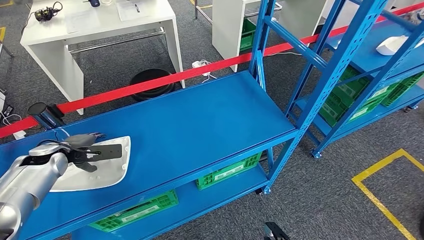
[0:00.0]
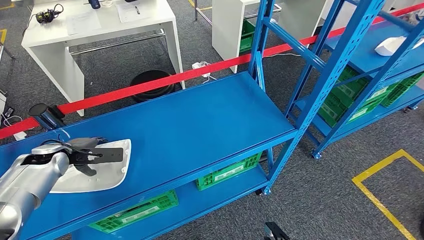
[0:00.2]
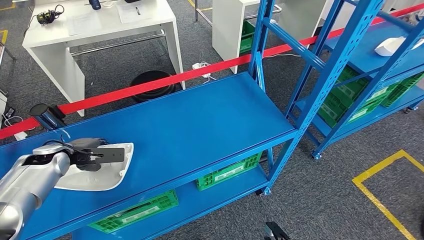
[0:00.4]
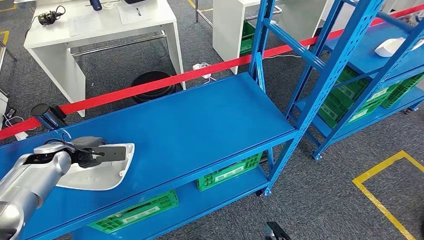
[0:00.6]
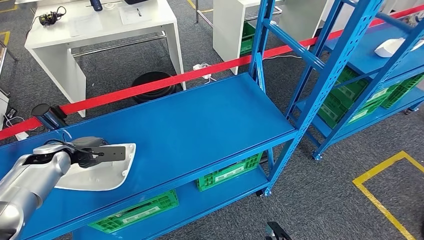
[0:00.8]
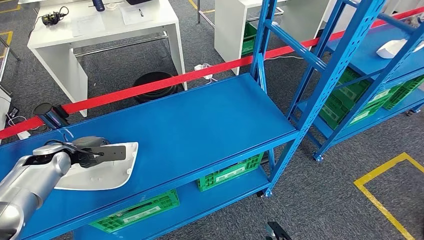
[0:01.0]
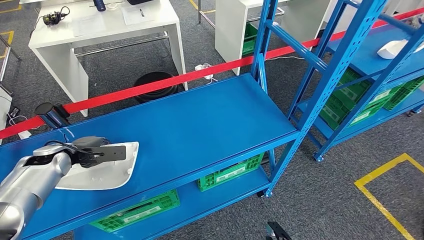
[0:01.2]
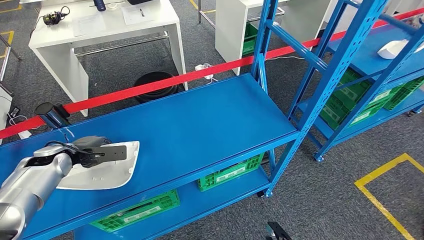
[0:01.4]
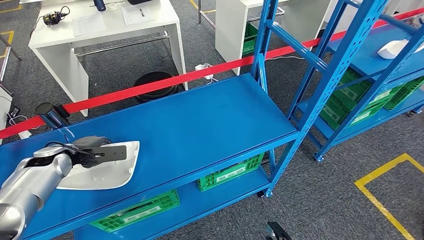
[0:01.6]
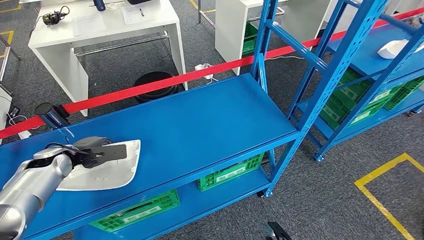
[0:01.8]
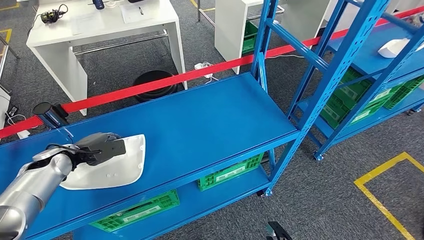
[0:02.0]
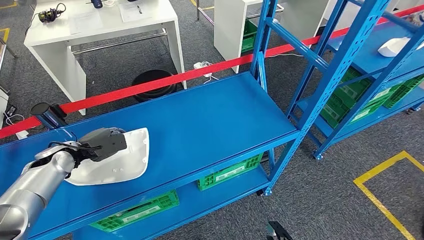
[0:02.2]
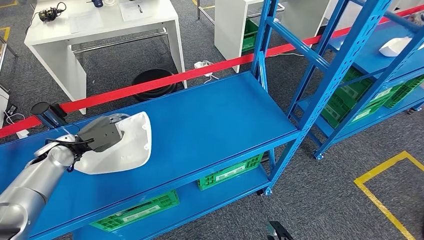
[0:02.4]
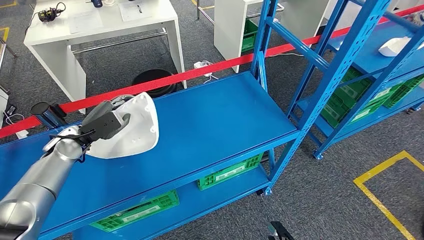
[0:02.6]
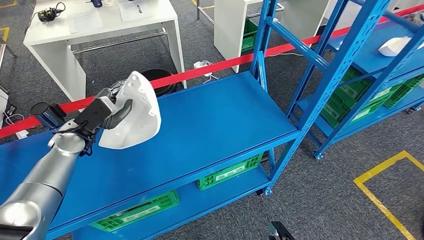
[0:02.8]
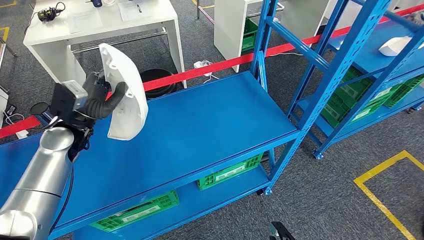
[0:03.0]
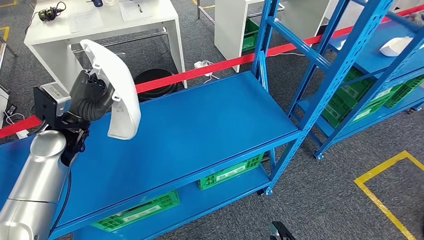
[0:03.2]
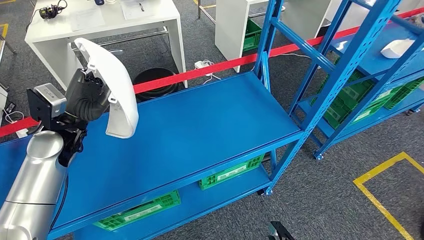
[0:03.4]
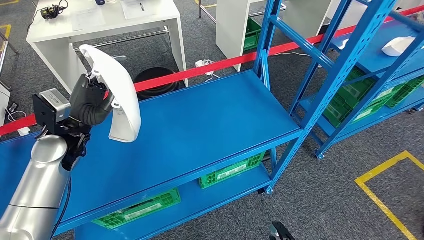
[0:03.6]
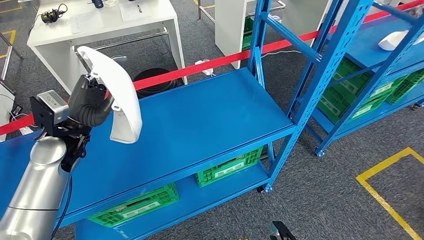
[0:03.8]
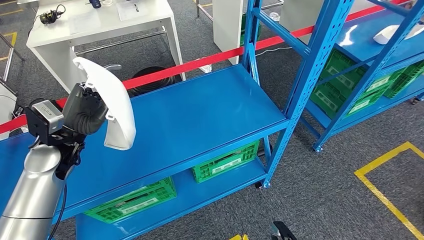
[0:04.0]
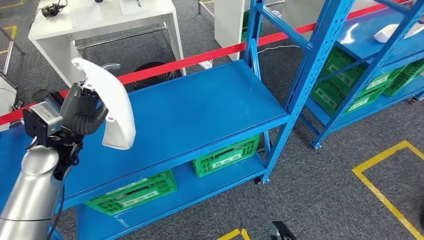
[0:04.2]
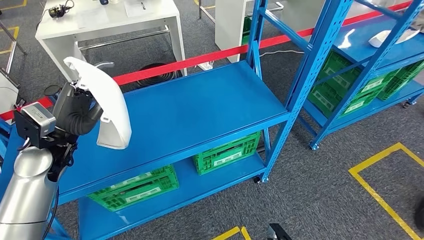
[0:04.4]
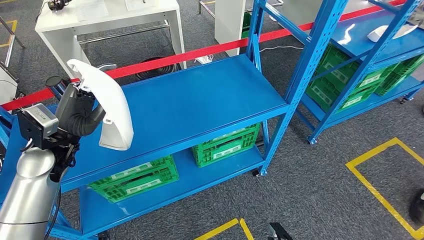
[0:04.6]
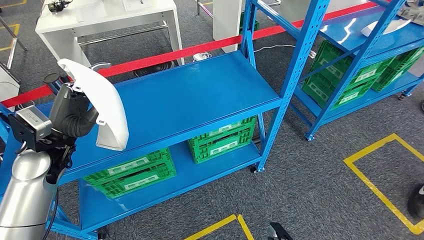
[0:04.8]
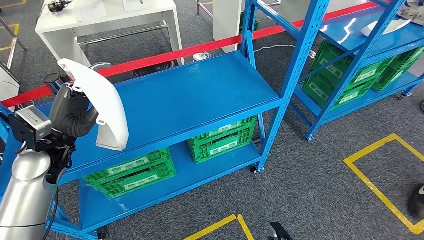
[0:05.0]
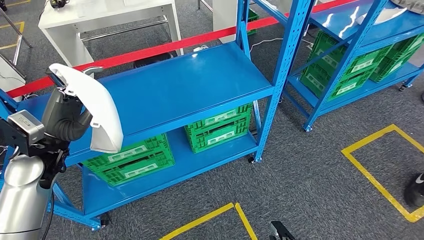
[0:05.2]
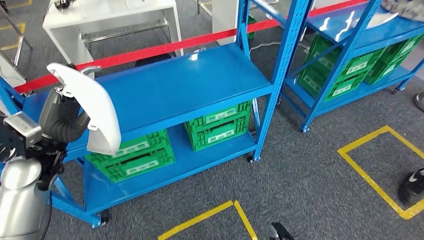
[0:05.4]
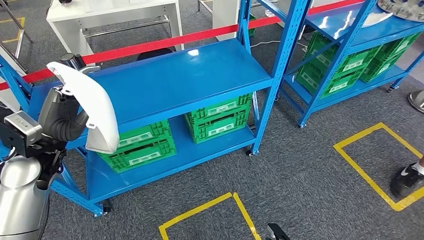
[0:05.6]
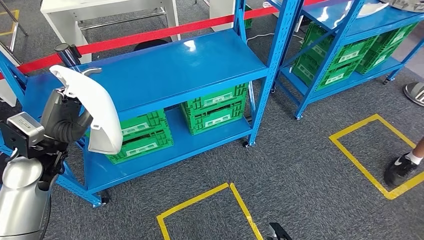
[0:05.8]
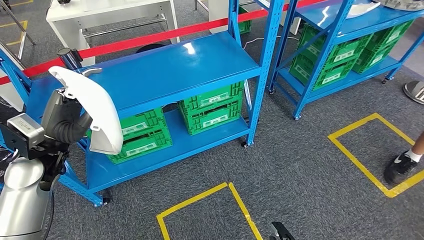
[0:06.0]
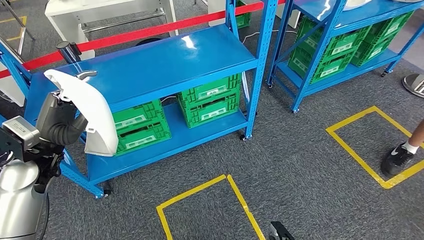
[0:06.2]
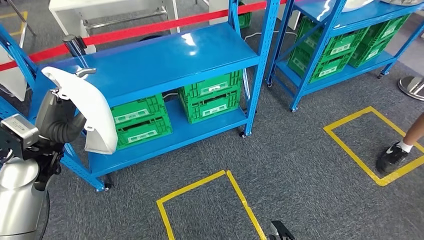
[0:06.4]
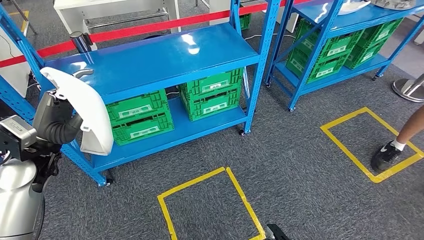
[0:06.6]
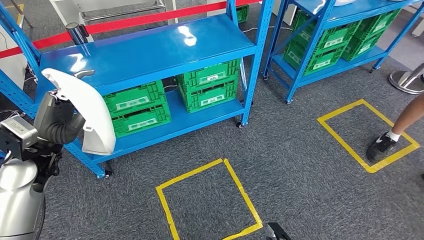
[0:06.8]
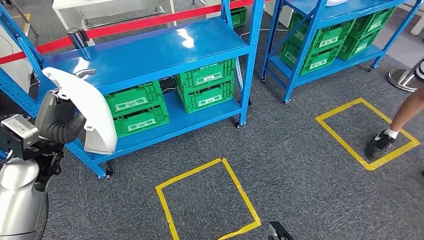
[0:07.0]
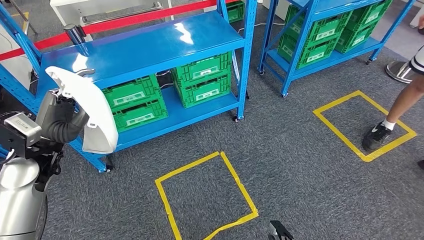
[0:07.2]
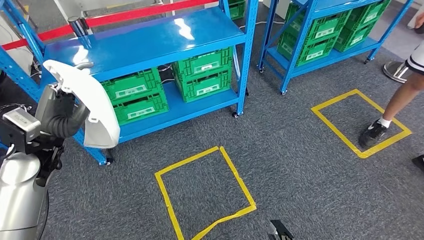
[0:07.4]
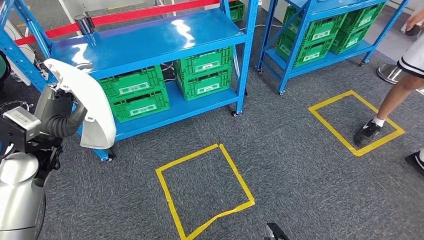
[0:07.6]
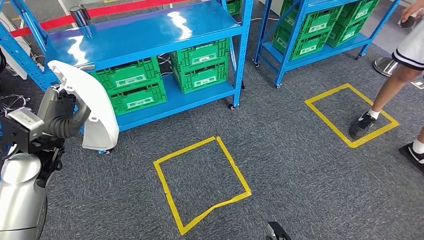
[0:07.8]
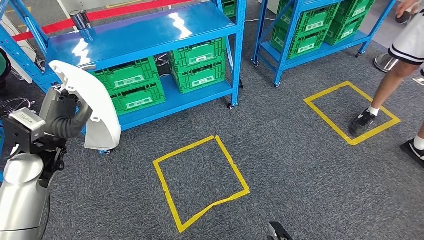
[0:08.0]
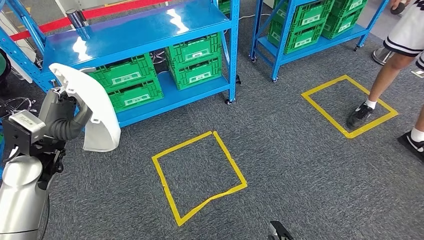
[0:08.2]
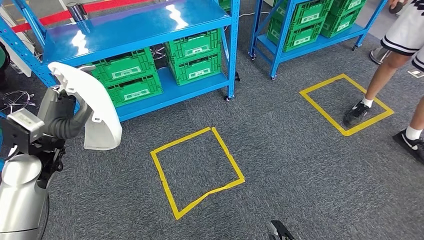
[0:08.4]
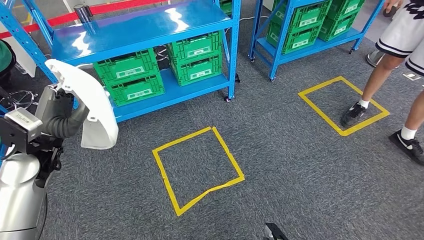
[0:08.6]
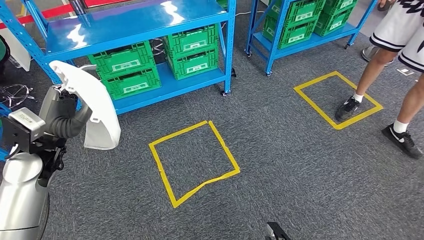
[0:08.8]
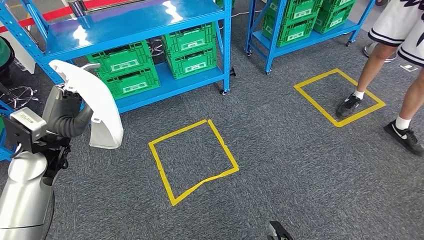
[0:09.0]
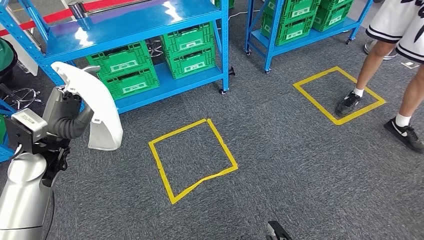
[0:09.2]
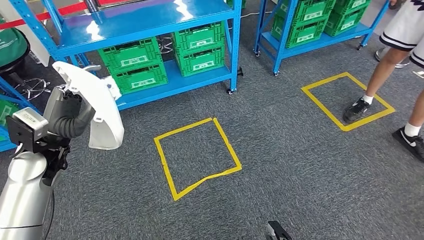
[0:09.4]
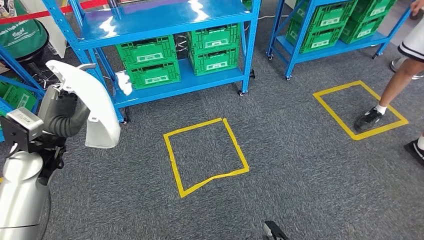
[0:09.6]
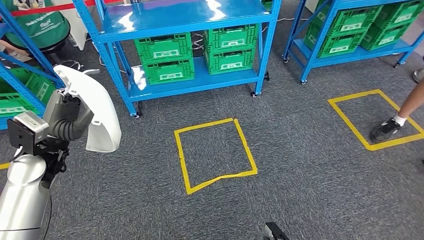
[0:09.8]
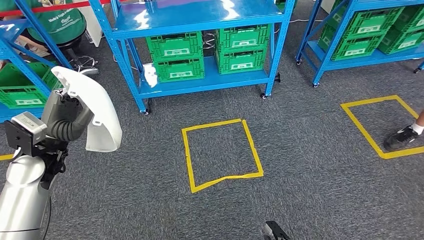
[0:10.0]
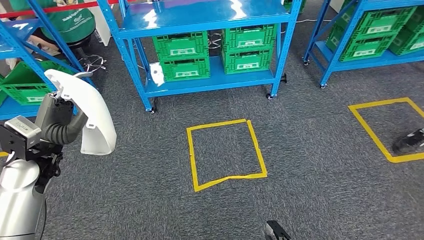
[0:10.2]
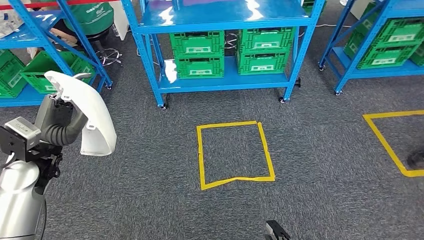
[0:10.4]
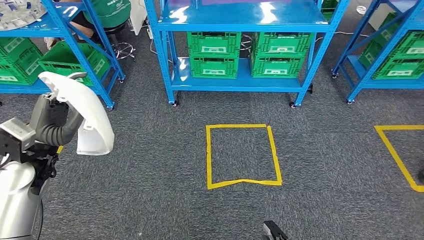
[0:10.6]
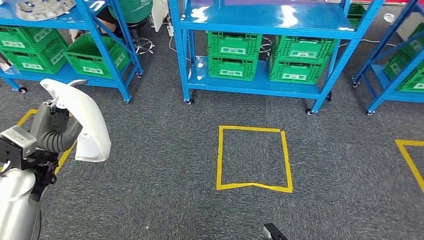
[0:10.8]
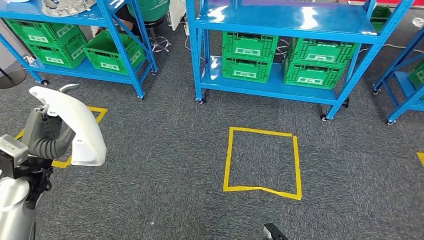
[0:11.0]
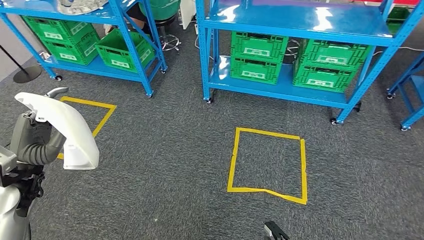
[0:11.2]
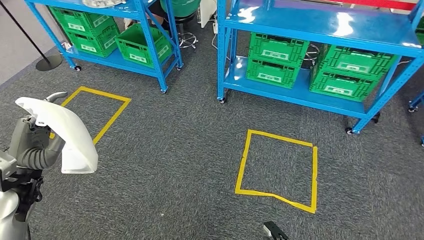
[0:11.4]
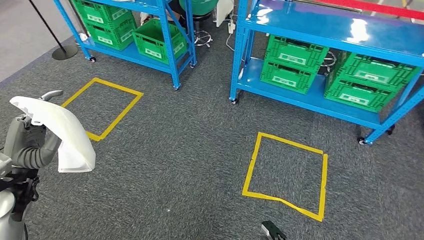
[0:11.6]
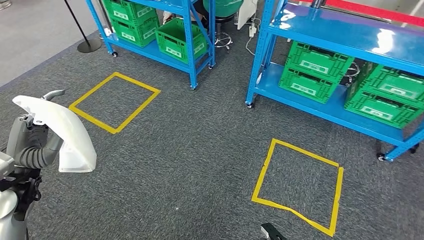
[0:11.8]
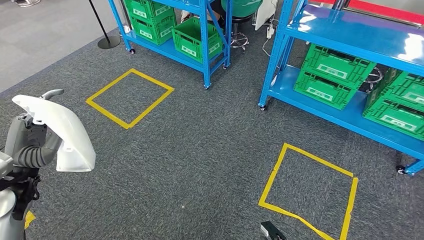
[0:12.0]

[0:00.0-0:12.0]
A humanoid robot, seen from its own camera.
Step, 0:00.0 to 0:05.0: Take small components from the rack.

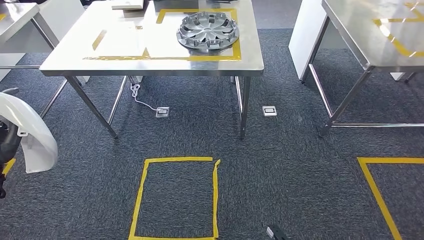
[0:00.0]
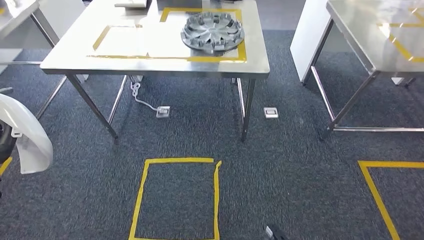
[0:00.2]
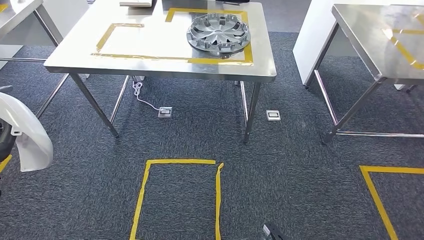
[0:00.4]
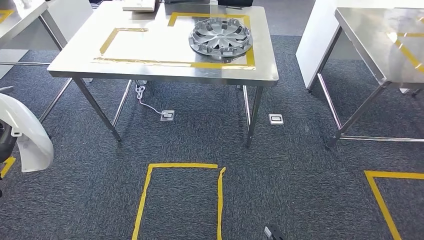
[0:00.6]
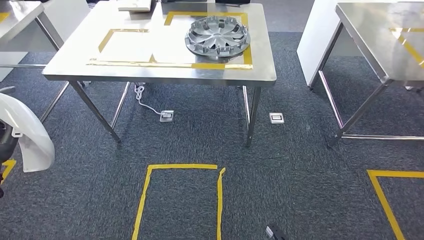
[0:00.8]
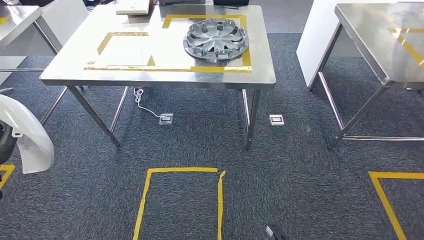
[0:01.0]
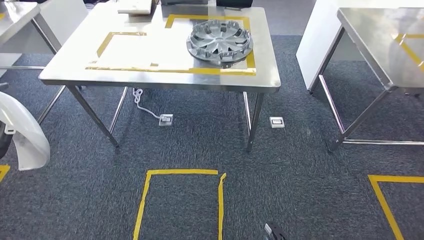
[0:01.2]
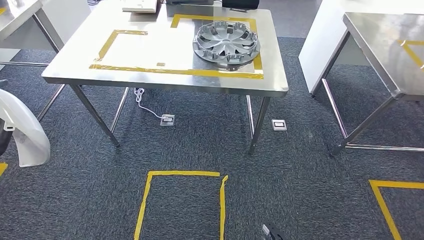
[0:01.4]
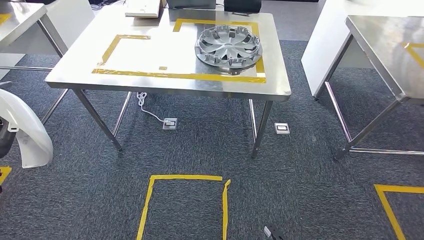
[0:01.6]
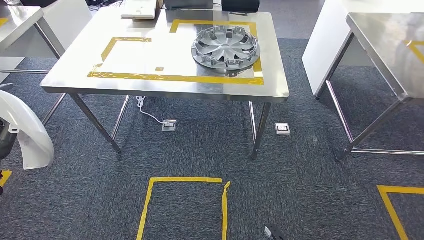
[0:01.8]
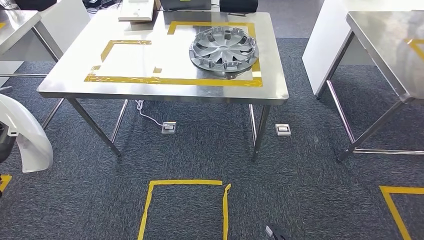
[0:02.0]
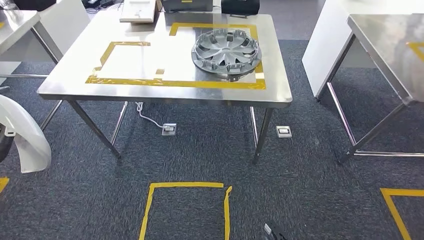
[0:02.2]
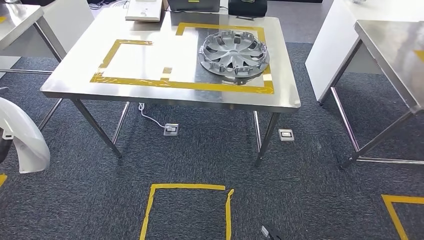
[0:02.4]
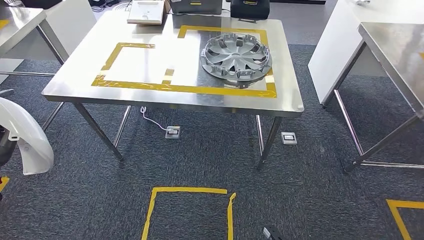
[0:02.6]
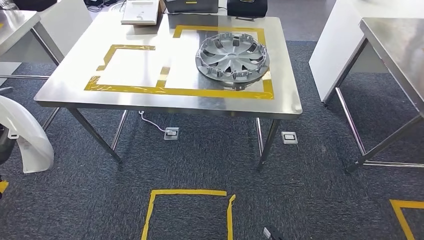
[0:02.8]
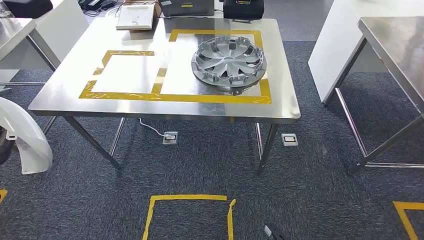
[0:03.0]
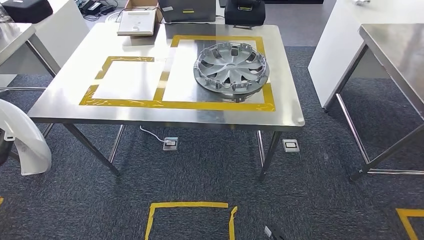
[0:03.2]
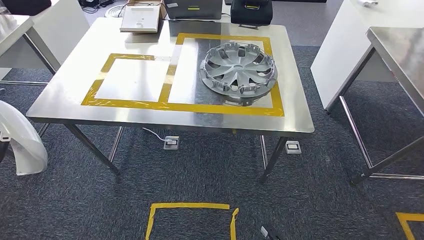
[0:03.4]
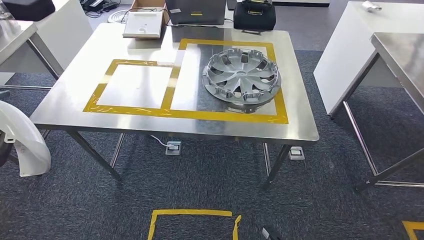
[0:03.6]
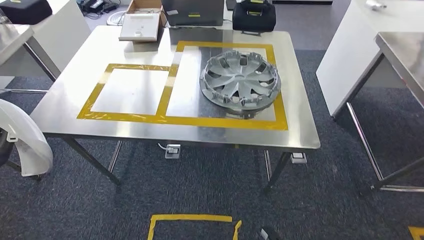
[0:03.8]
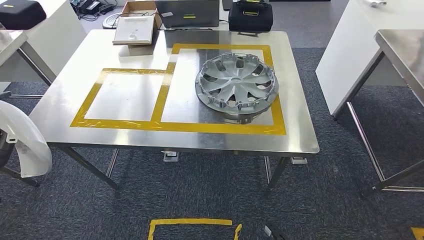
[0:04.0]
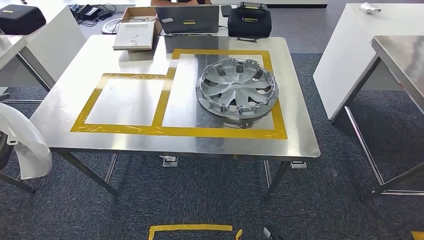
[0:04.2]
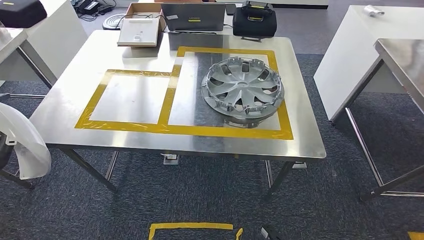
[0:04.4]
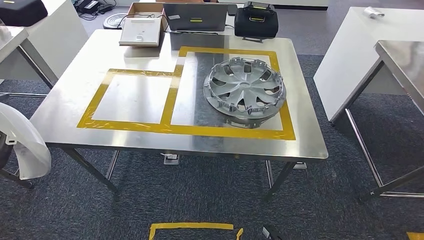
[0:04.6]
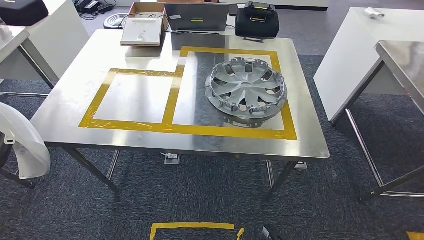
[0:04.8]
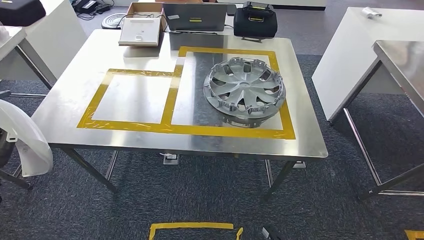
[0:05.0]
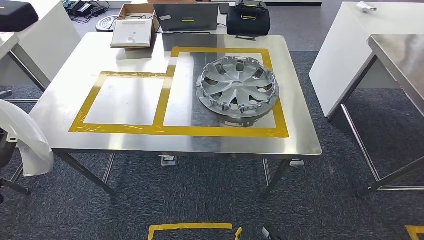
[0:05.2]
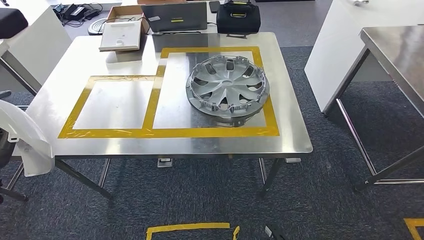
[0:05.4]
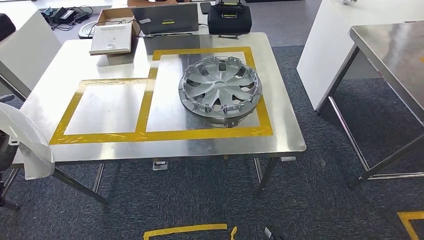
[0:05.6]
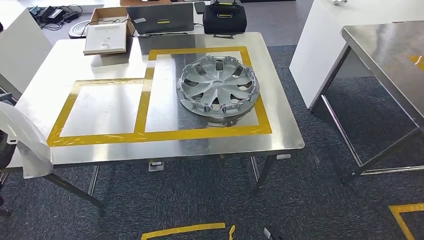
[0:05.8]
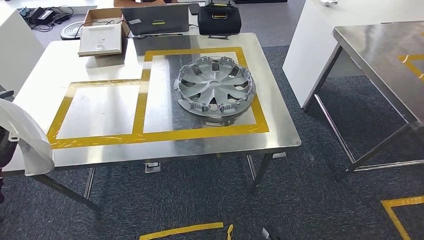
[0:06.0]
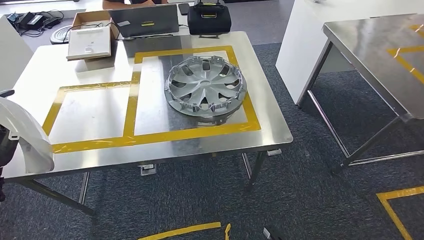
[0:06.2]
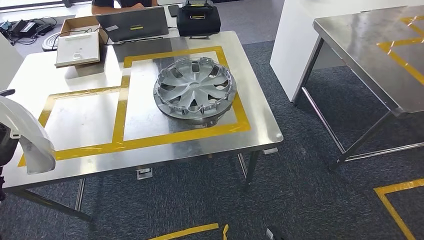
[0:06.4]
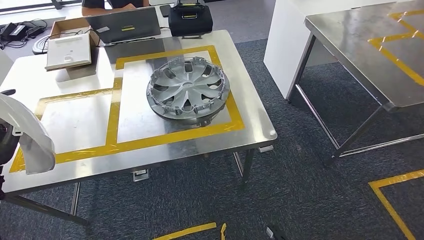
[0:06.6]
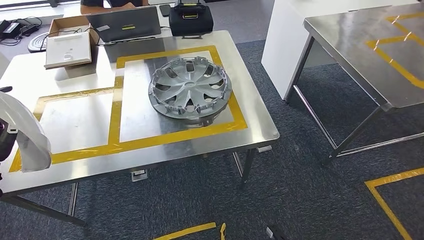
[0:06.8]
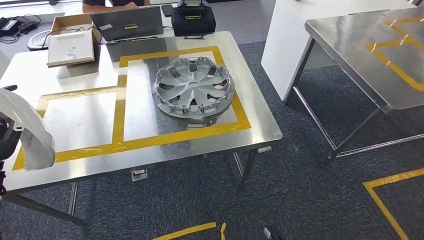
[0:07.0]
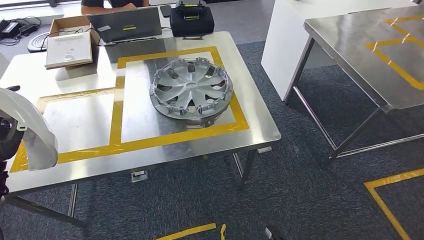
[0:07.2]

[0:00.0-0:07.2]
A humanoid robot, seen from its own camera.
Step, 0:00.0 to 0:05.2: Move the small parts to the workbench.
